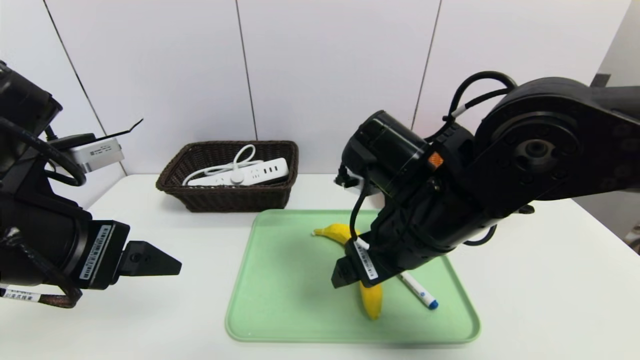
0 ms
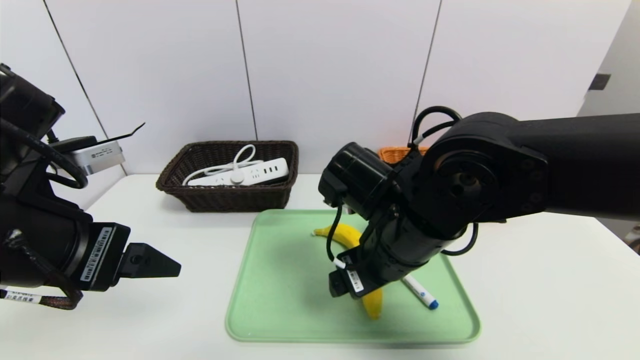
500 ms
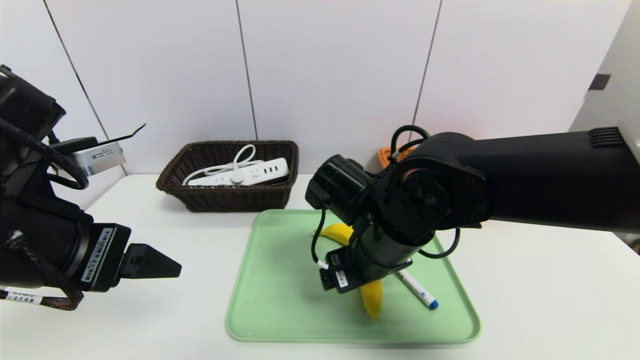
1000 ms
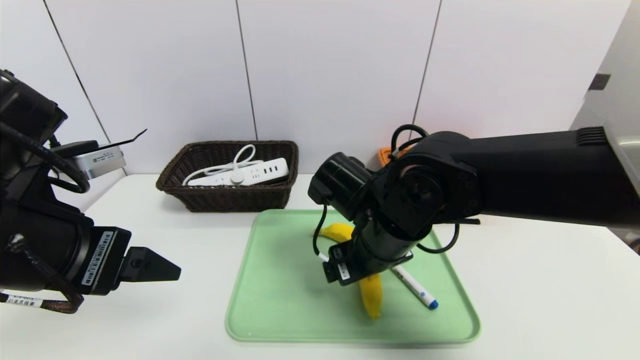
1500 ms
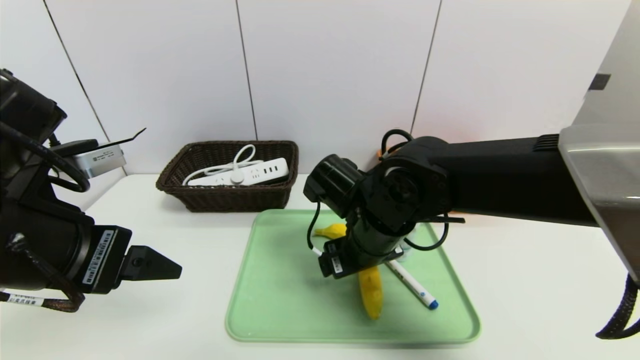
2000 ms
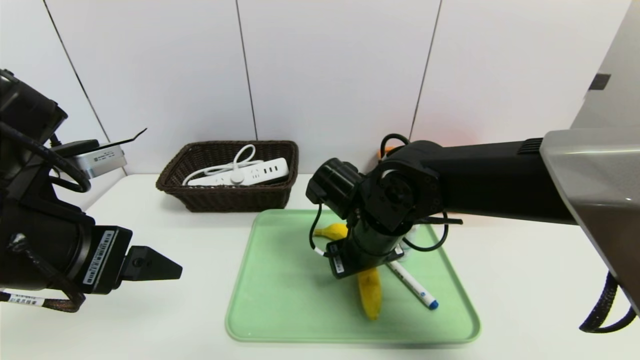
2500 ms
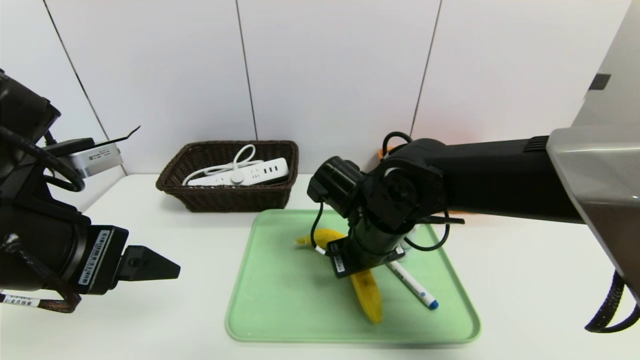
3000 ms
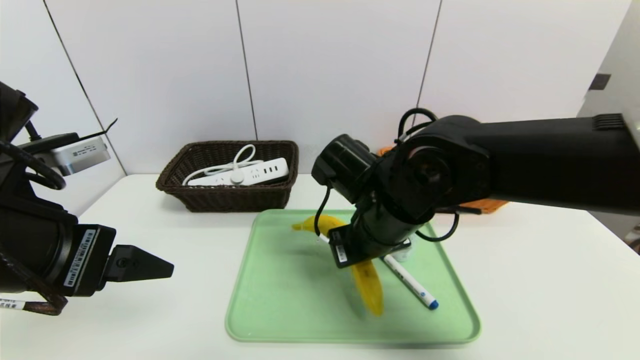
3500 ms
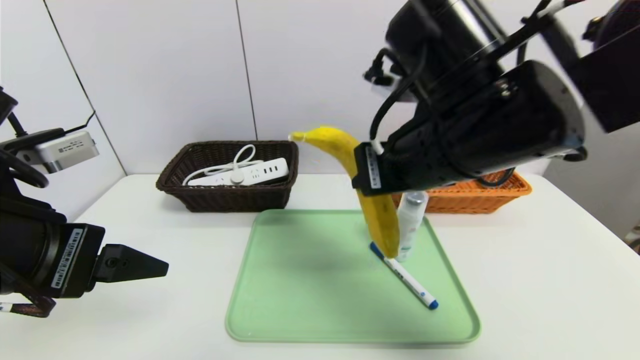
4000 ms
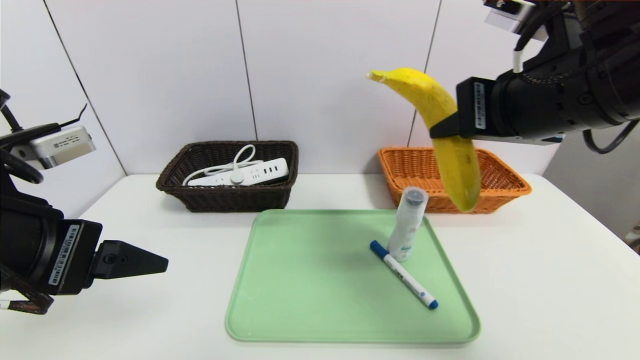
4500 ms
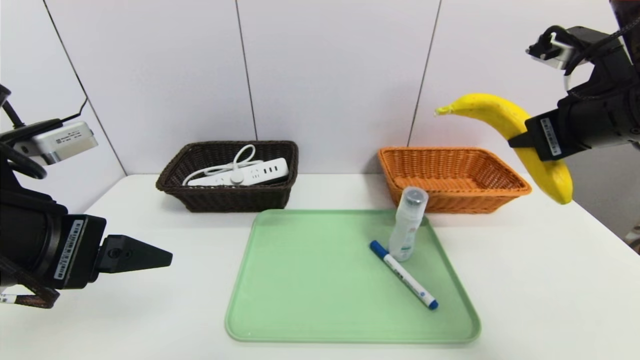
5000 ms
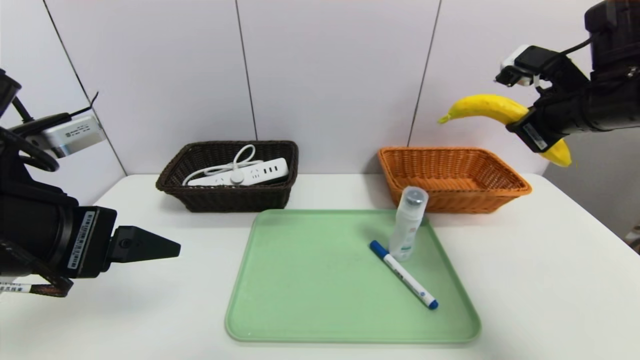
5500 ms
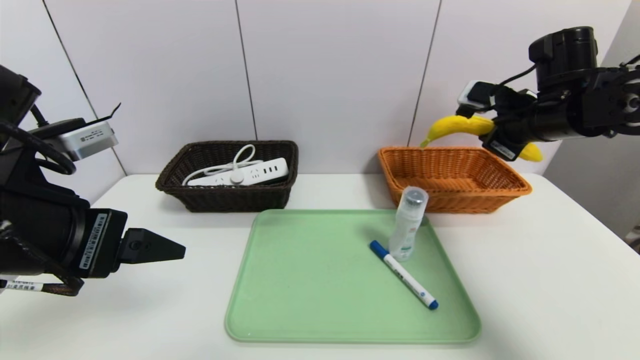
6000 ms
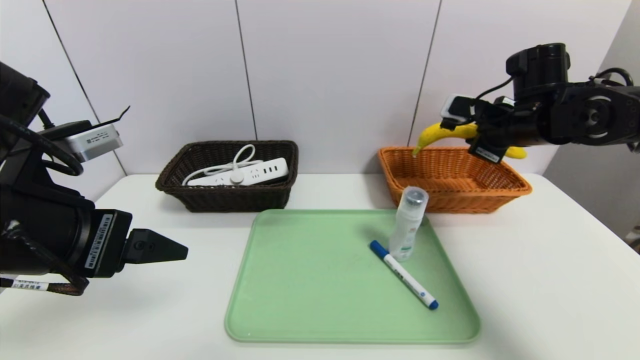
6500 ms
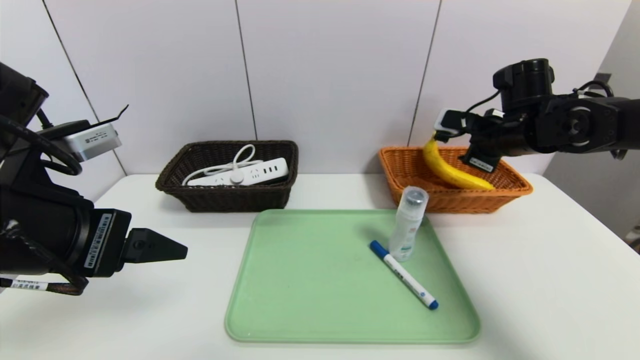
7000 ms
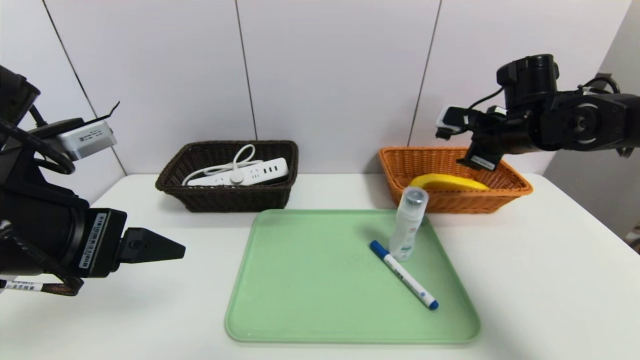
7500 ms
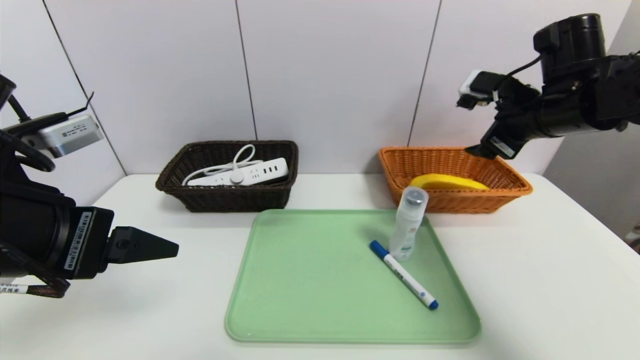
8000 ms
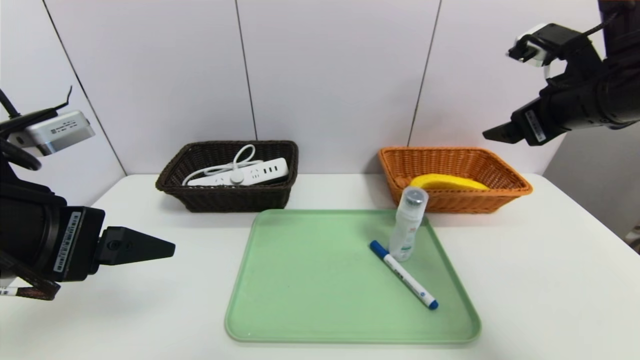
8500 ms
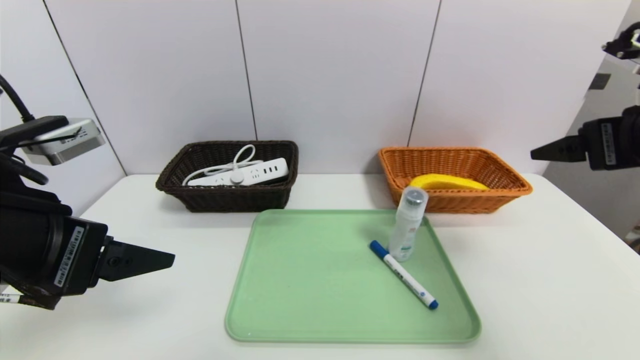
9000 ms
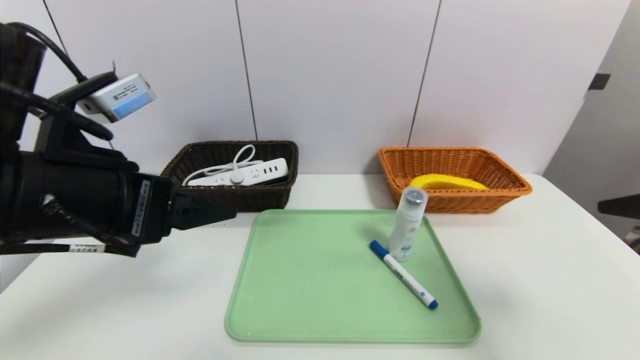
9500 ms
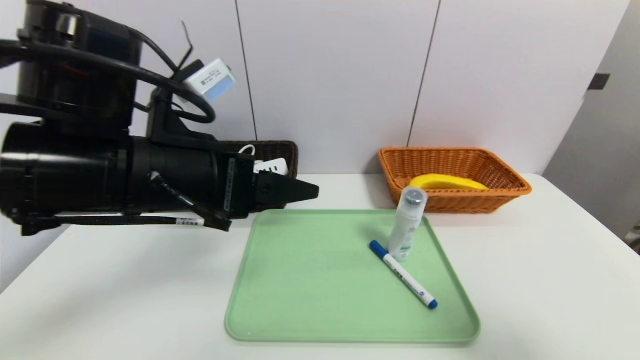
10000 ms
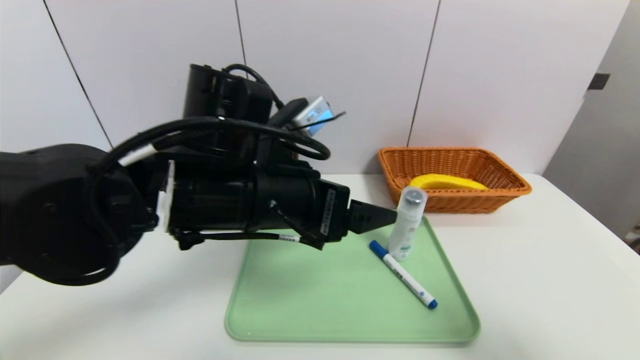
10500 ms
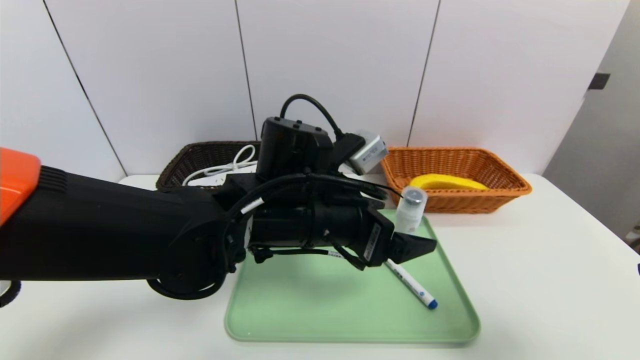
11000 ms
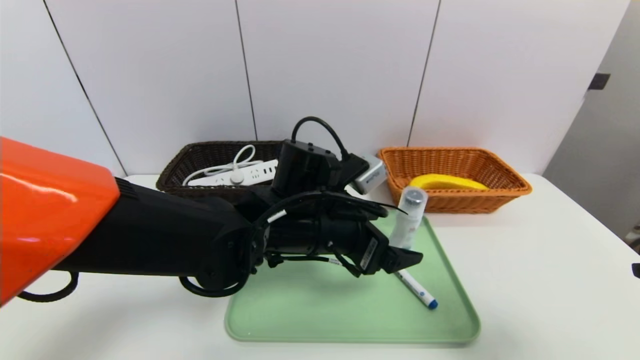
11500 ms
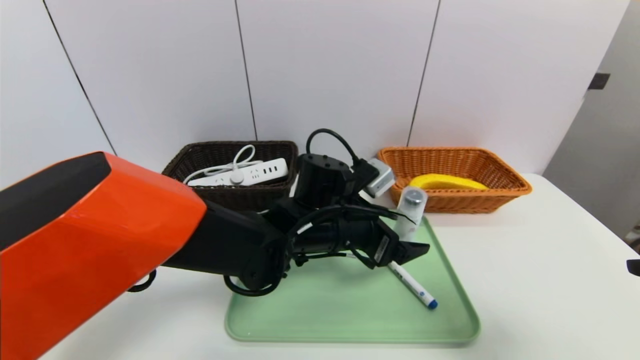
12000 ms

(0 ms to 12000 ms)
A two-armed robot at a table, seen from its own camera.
Task of the whole recording: place the food in the right basket with the right gripper, and place the non food items in the left basket with the left gripper.
Step, 0 ms - 7500 ms: Grasp the banana and put it in the right basket.
0 ms - 2000 ms: The right gripper heads downward and forward, covering roughly 10 cm.
2000 ms - 4000 ms: The right gripper shifts roughly 15 cm upward, and closes.
4000 ms - 6000 ms: The right gripper is displaced to the right and forward by roughly 25 cm.
6000 ms - 8000 ms: The right gripper opens.
8000 ms - 10000 ms: The right gripper goes about 30 cm backward. The left gripper moves to the right and forward, roughly 10 cm.
10000 ms - 12000 ms: The left gripper heads to the right, downward and forward, covering some 25 cm.

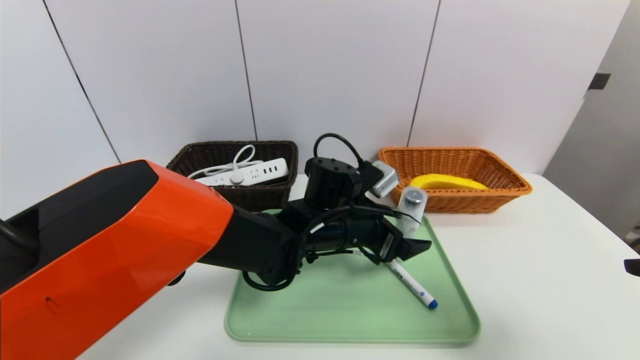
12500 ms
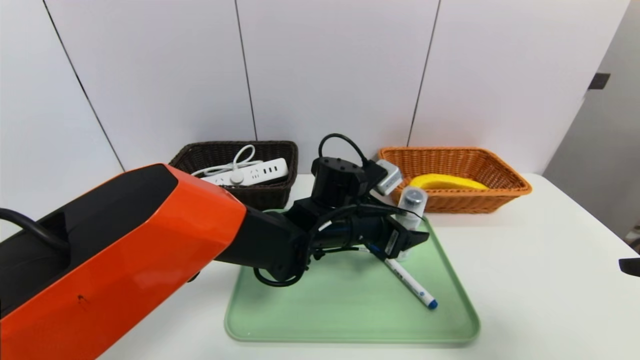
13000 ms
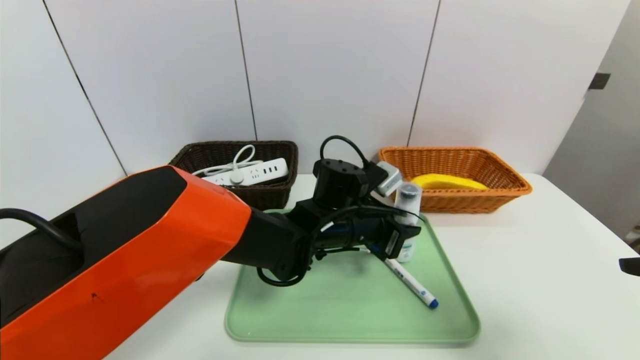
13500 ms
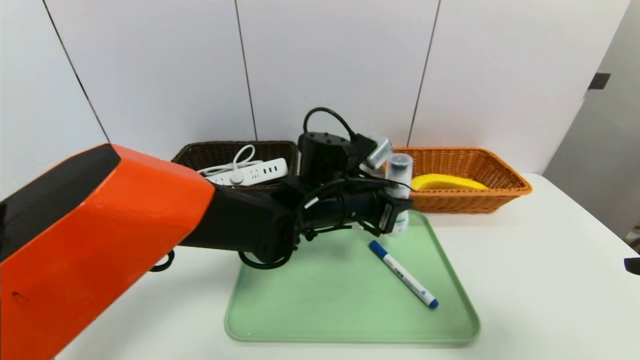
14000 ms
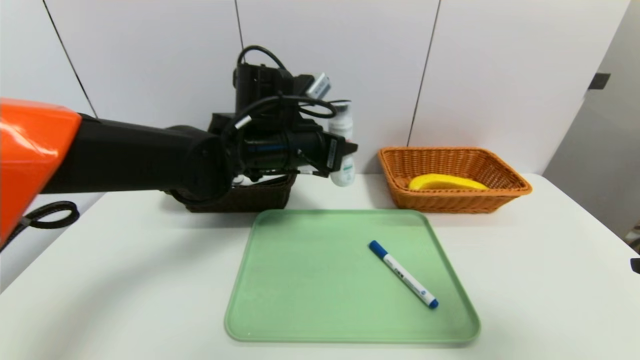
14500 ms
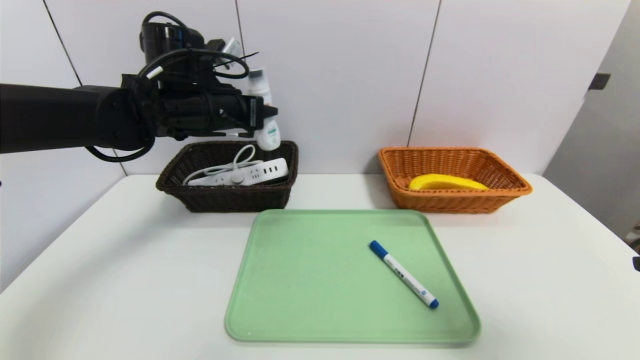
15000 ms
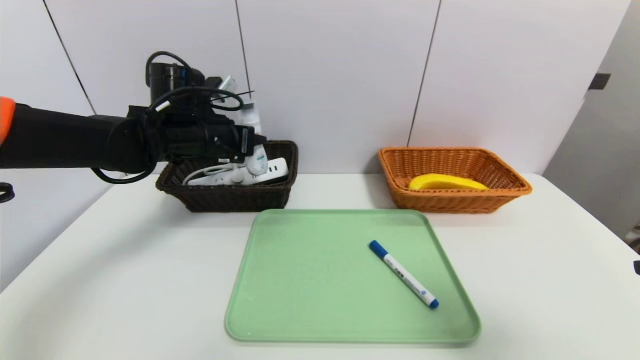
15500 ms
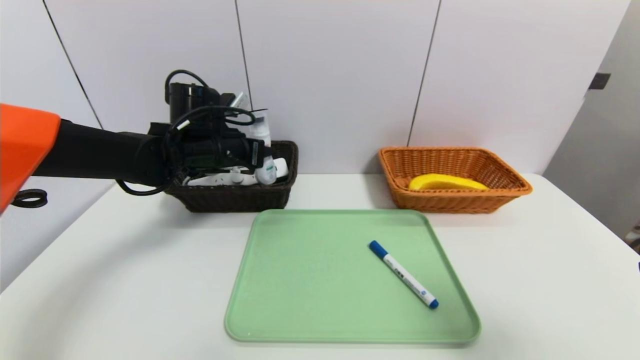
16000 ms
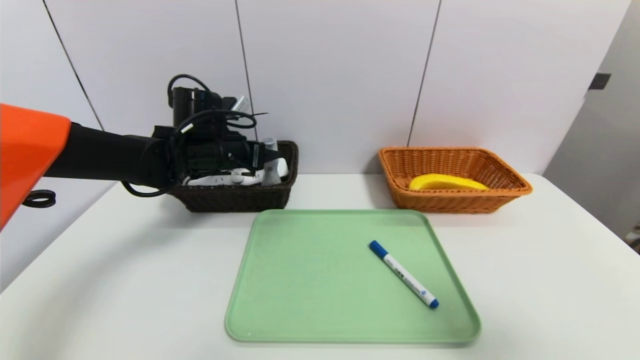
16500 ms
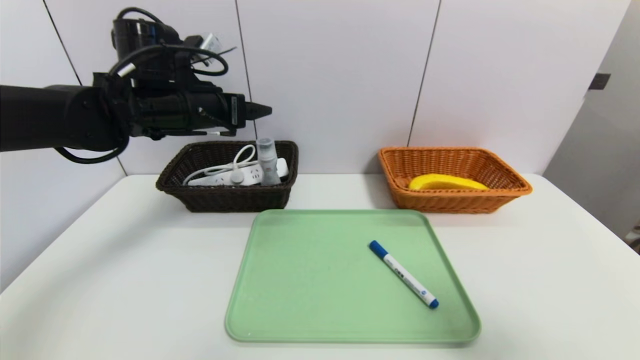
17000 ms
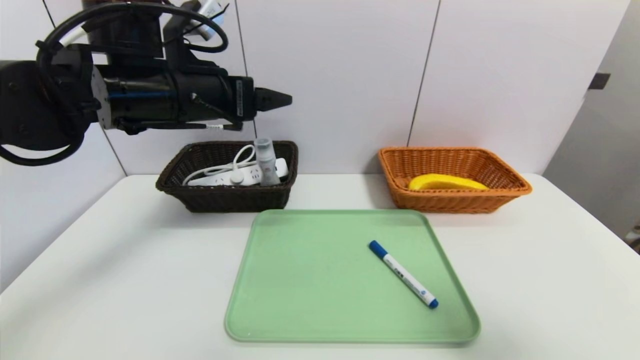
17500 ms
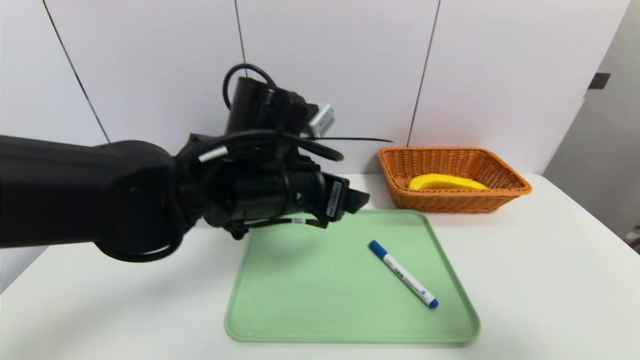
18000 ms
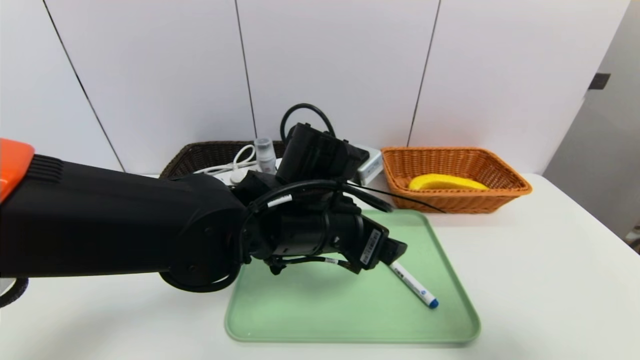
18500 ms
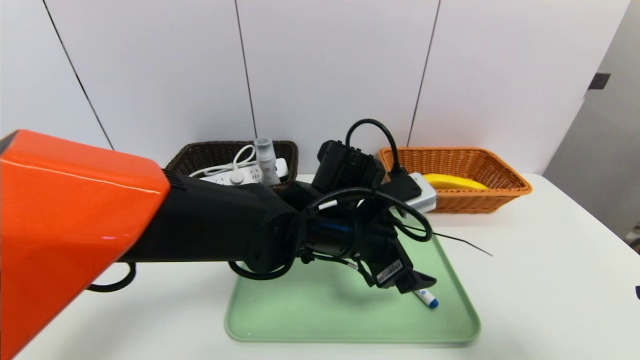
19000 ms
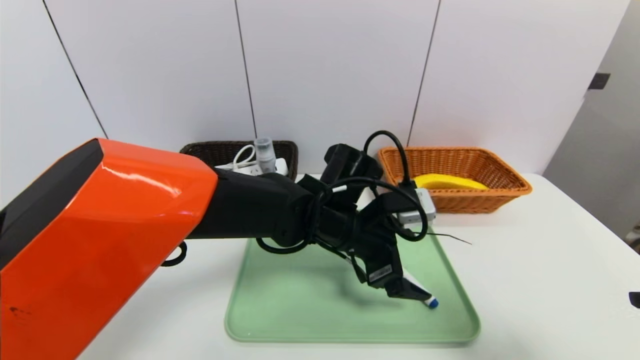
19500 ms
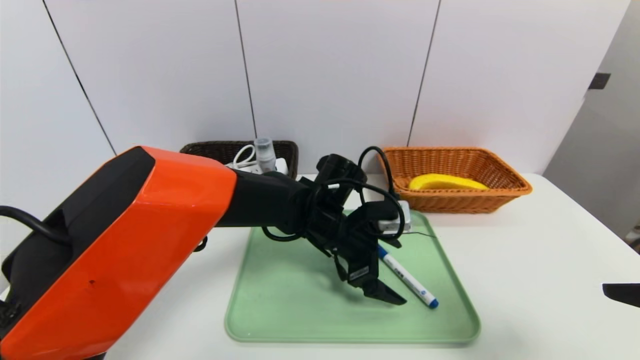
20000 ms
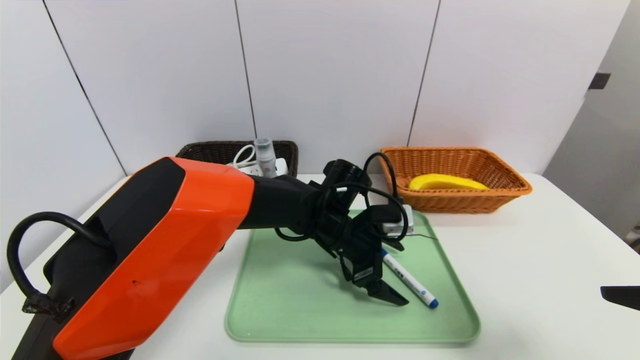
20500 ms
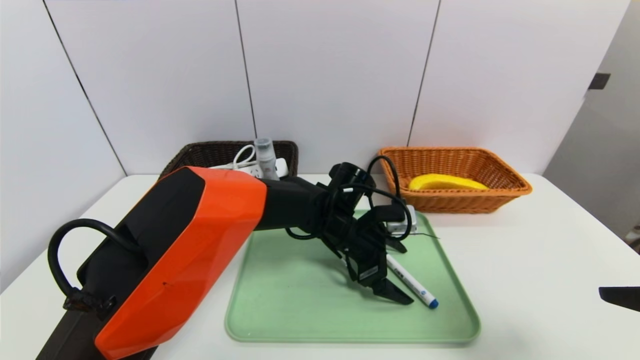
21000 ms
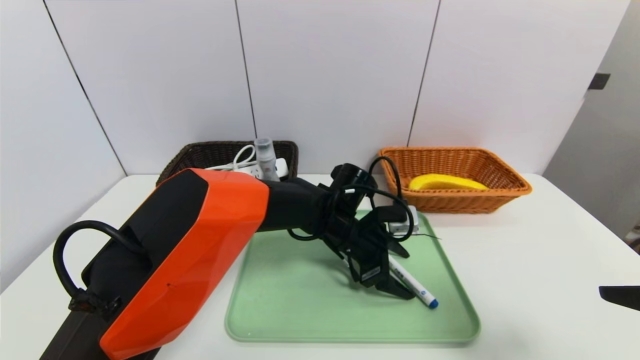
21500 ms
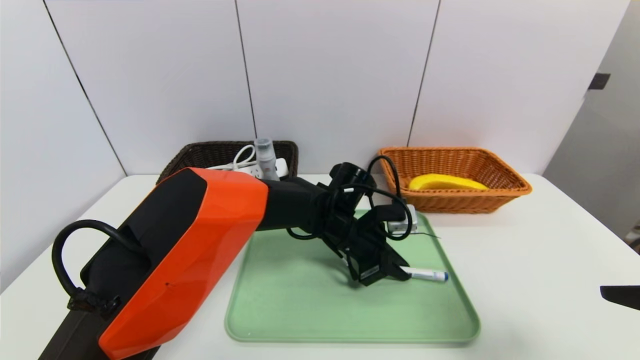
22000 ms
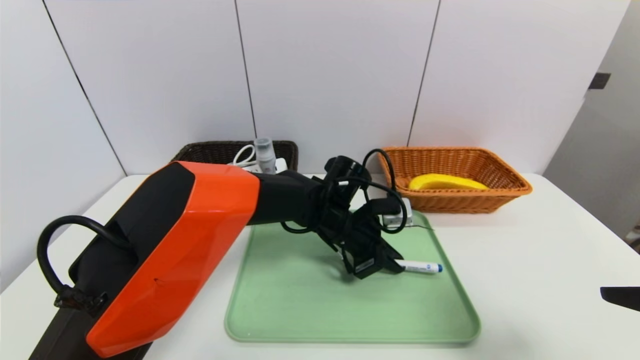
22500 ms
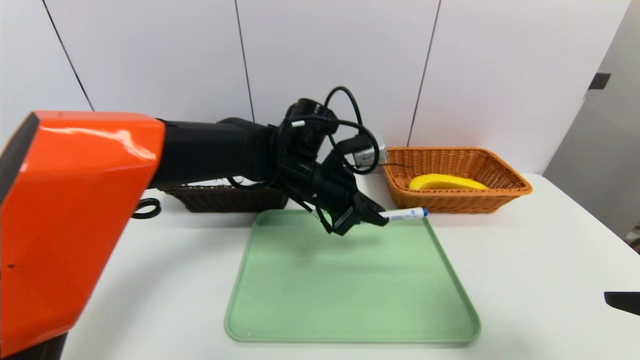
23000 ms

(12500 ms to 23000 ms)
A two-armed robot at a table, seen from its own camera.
Task of the whole recording: place the food in the right basket with the right gripper, and place the non food items in the left basket with the left gripper.
Step, 12500 ms - 16500 ms: Grasp the cleaning agent and put it in the left basket.
12500 ms - 14500 ms: The left gripper goes approximately 15 cm upward and to the left, and closes up.
14500 ms - 16500 ms: The left gripper goes about 15 cm to the left and forward, and opens up.
16500 ms - 19000 ms: The left gripper is displaced to the right and backward by approximately 25 cm, and opens up.
19000 ms - 21000 ms: The left gripper goes approximately 10 cm forward and downward.
21000 ms - 23000 ms: The left gripper is displaced upward and to the left by about 10 cm, and closes up.
